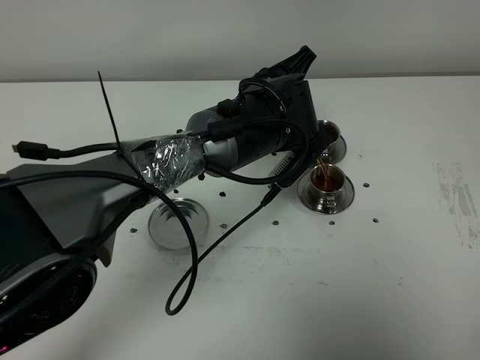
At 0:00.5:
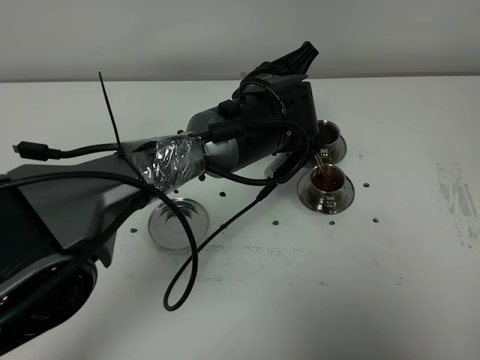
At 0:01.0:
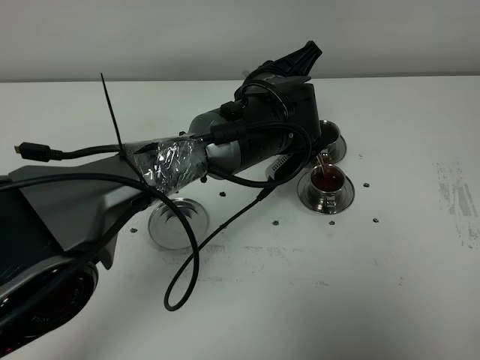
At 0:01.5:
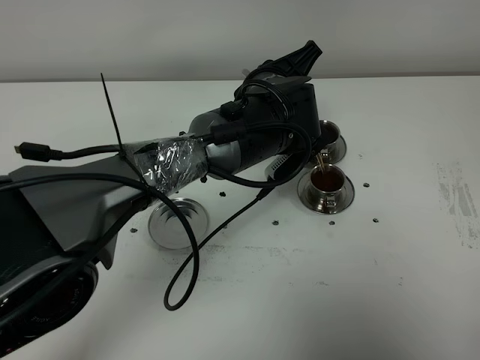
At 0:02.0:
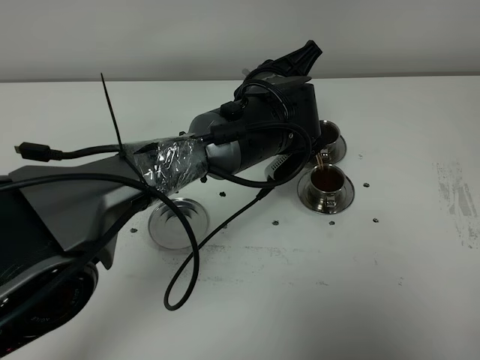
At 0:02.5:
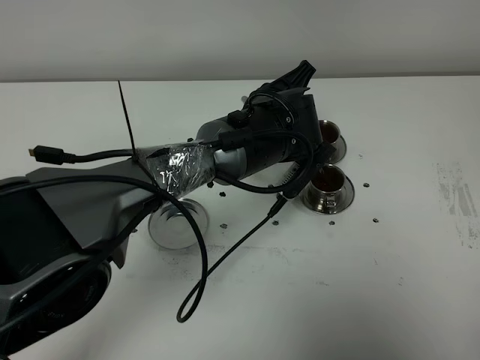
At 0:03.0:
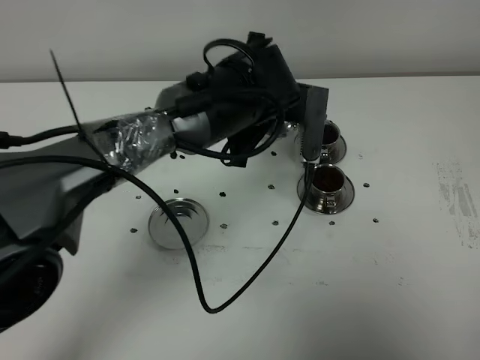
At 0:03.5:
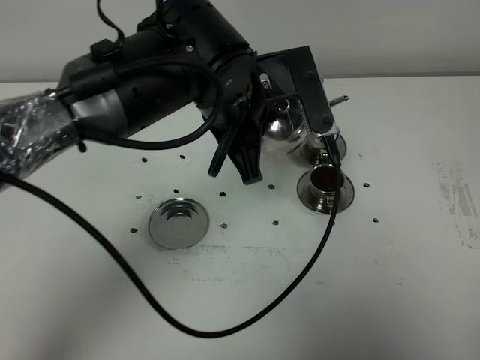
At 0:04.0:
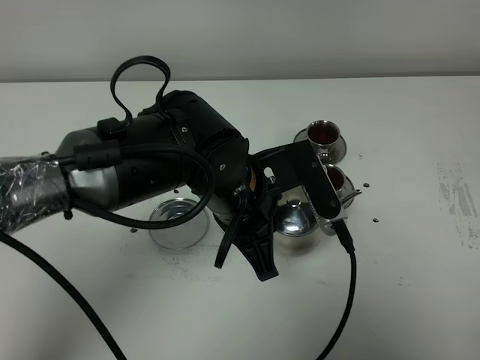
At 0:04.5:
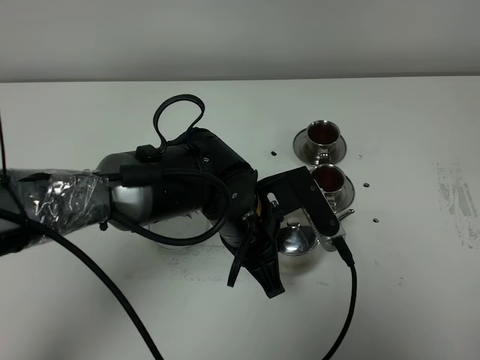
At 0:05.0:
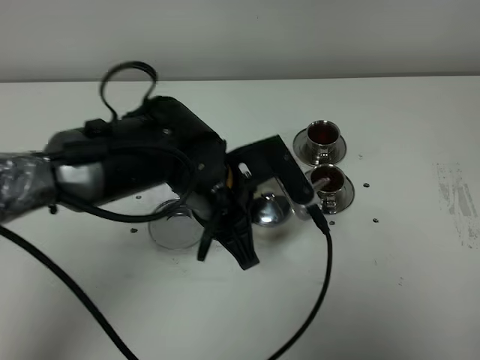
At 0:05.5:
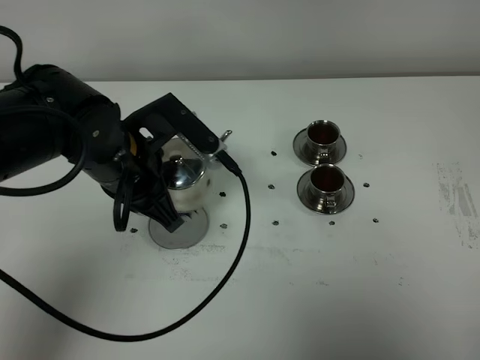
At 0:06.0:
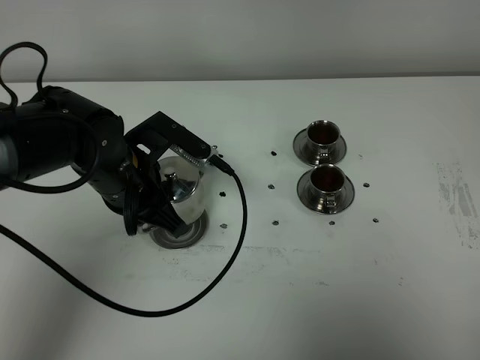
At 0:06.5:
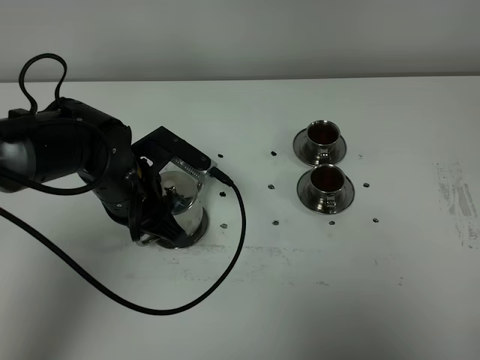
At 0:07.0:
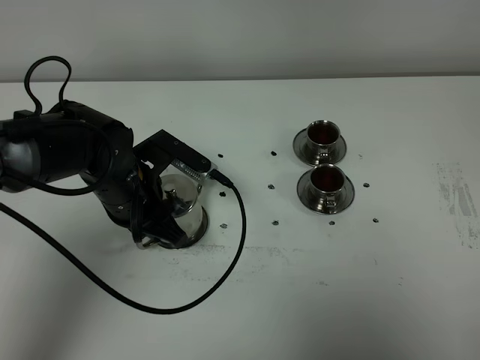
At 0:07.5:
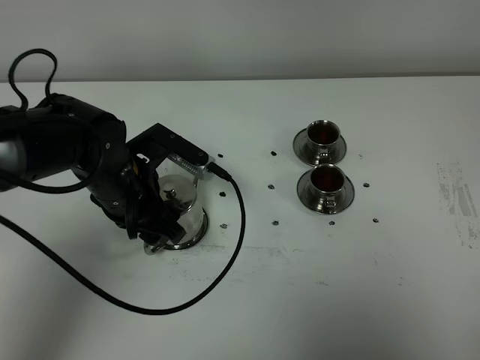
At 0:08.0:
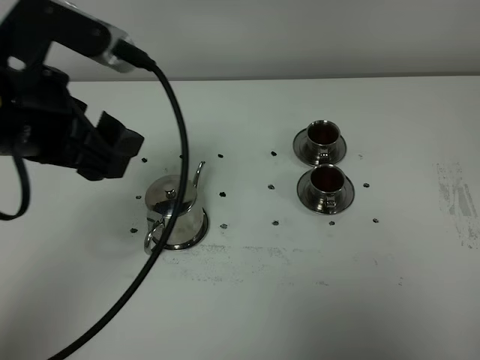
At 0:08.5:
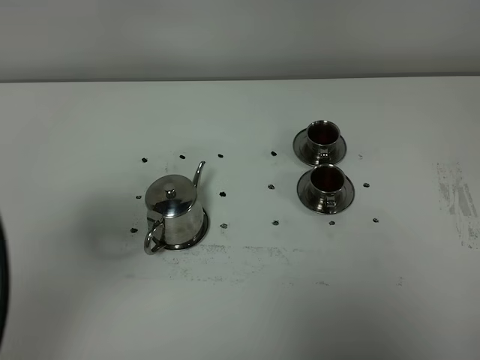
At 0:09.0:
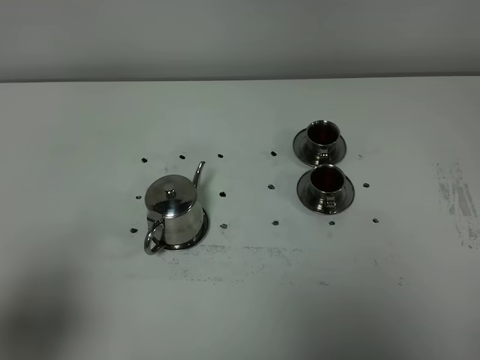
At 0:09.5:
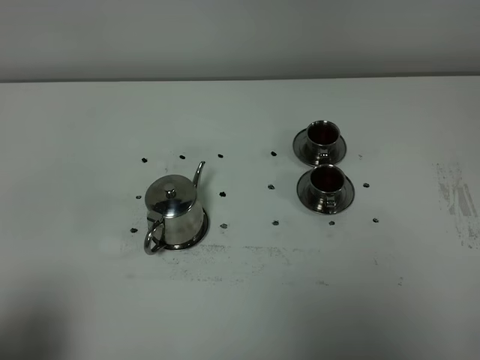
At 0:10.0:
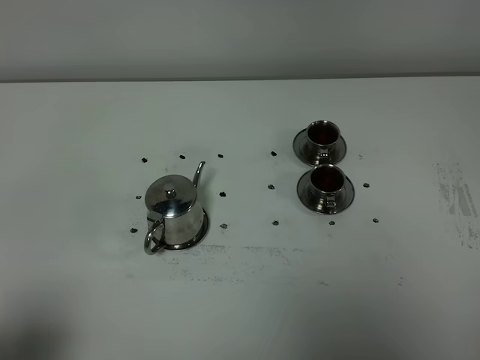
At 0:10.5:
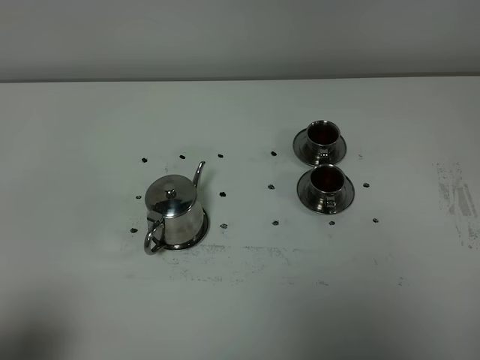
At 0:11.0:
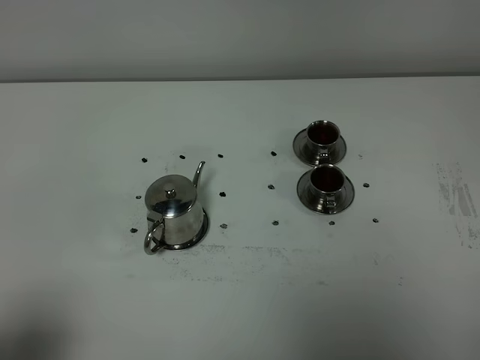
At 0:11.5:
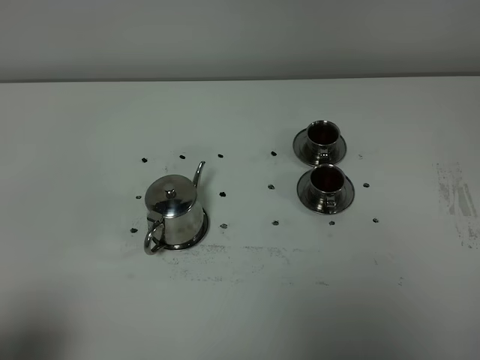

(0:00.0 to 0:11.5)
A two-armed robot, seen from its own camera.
Task of the whole recording: grasp the stainless steel teapot and pour the tea into the two stainless steel teacups one by one, put the stainless steel teapot back in its original place.
Step, 0:00.0 - 0:02.5: Pour tea into the teacup with the left gripper.
0:00.0 - 0:02.0: The grippers stay close to where they were, moving slightly.
0:02.0 - 0:04.0: The left gripper is displaced backward and to the left by approximately 15 cm.
0:04.0 - 0:06.0: The left gripper goes about 15 cm to the left.
0:06.0 - 0:07.5: The left gripper opens up.
0:07.5 - 0:09.5: The left gripper goes some 35 cm backward and to the left.
